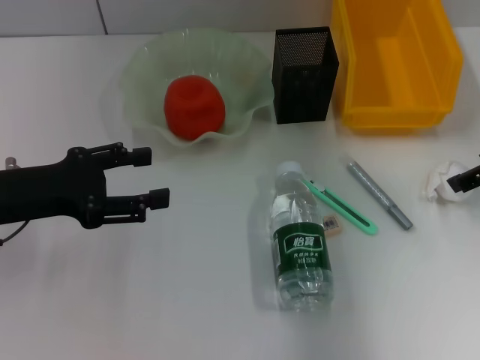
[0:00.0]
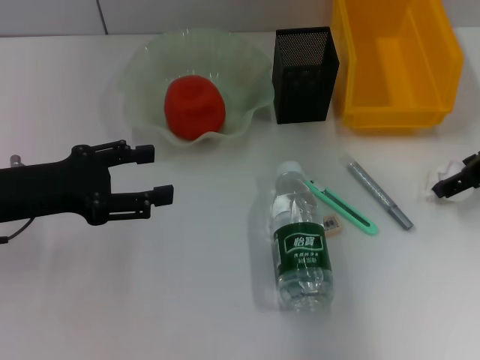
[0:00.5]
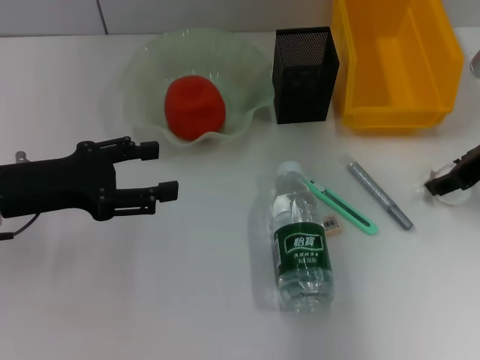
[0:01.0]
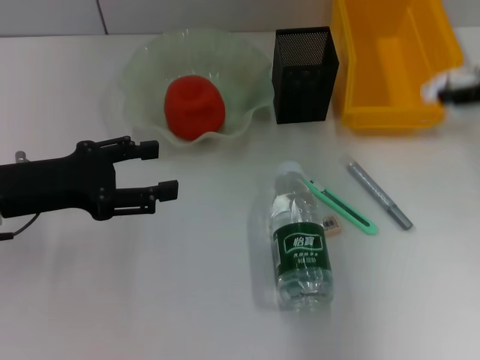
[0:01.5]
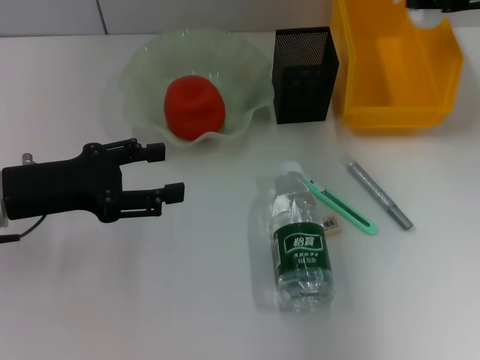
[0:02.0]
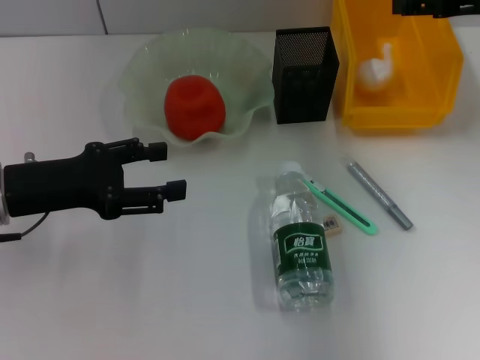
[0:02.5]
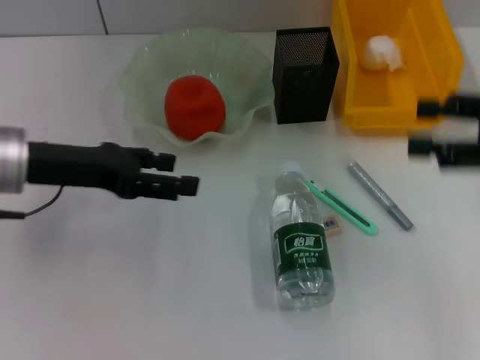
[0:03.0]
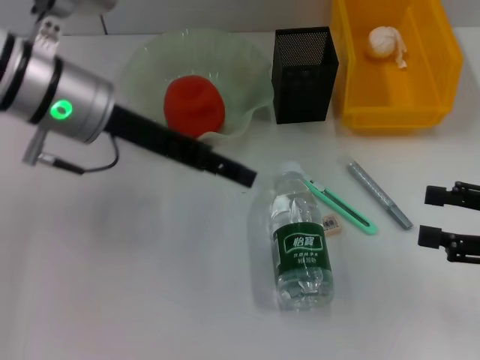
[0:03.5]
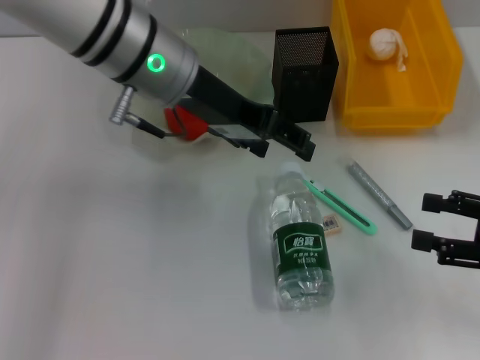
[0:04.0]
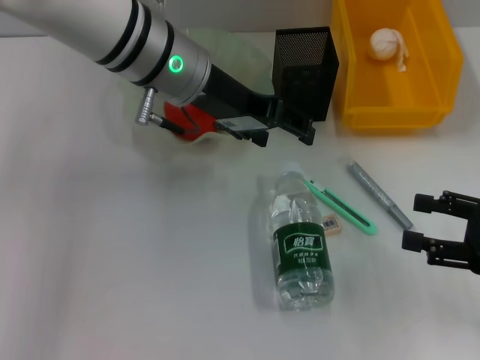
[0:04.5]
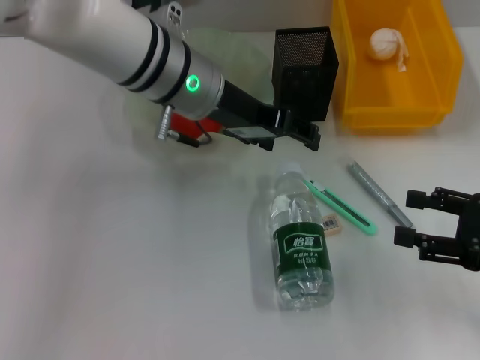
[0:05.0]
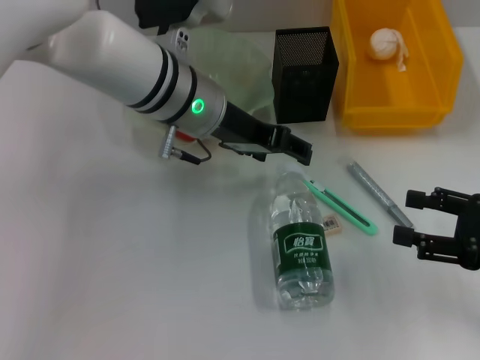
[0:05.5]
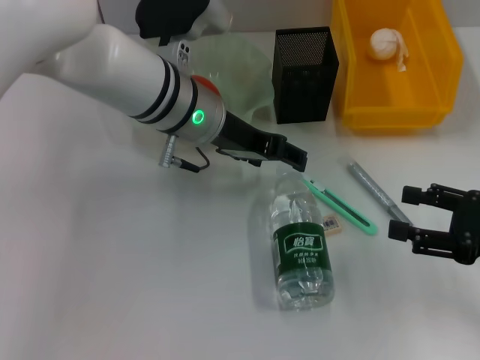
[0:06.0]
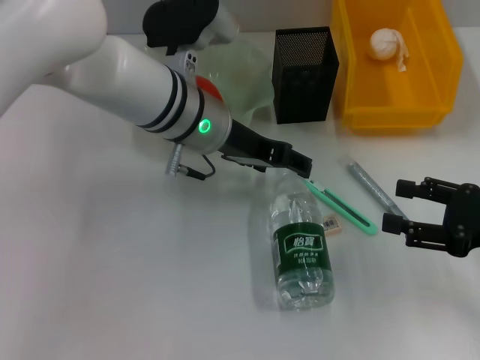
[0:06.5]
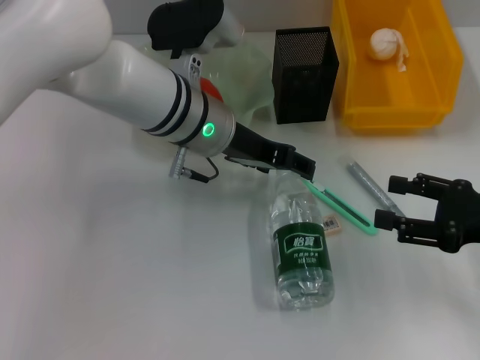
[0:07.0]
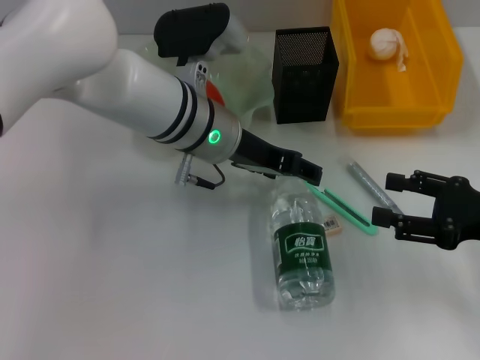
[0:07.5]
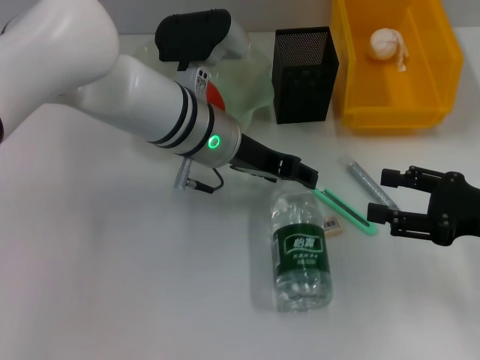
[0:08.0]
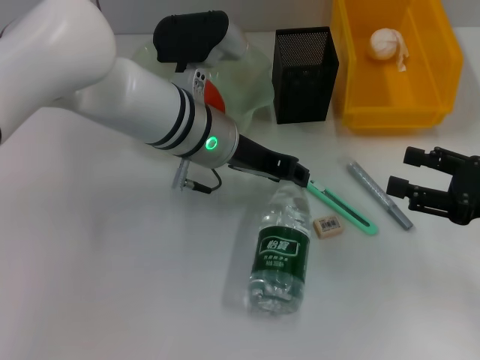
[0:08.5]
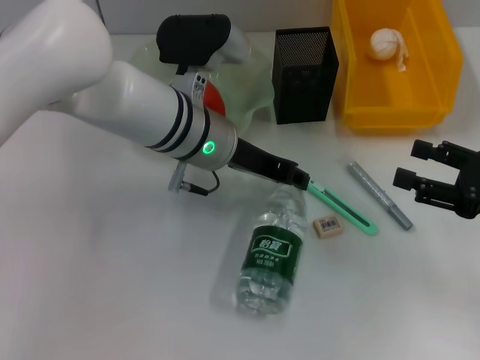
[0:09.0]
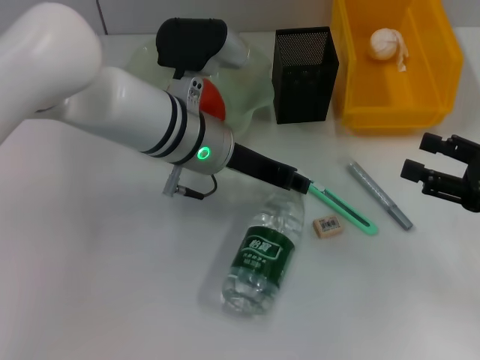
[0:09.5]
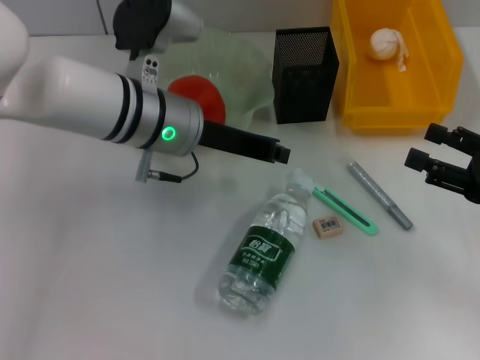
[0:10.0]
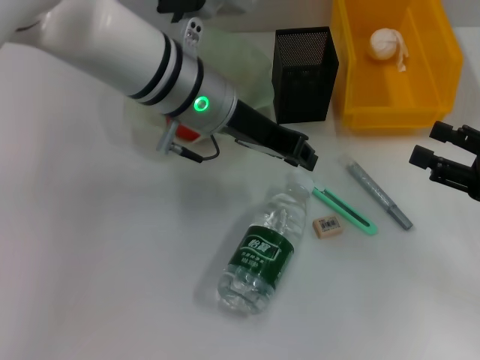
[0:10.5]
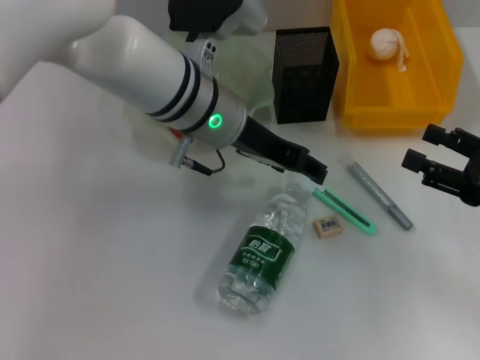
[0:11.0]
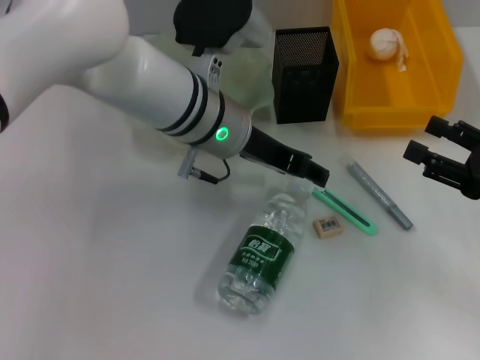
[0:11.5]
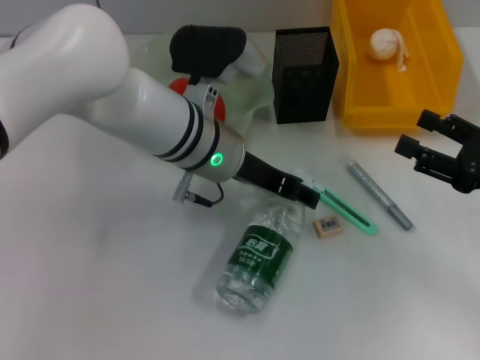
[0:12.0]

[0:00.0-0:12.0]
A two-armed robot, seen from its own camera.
Step, 0:01.0 to 0:02.5: Place the paper ball into the trash can with the right hand.
0:00.0 to 0:02.0: The right gripper moves forward, about 10 cm, and closes.
0:02.0 to 0:04.0: The left gripper travels to the right, forward and upward by approximately 20 cm; the right gripper travels backward and downward by approximately 25 cm.
0:04.0 to 0:06.0: The left gripper heads downward, covering some 5 cm.
0:06.0 to 0:08.0: The grippers stay close to where they were, moving slightly.
0:08.0 to 0:10.0: The left gripper closes up.
0:10.0 to 0:12.0: The left gripper opens up.

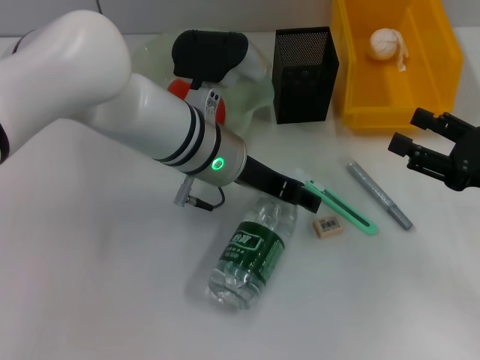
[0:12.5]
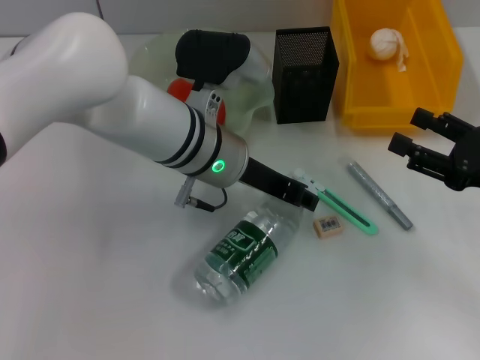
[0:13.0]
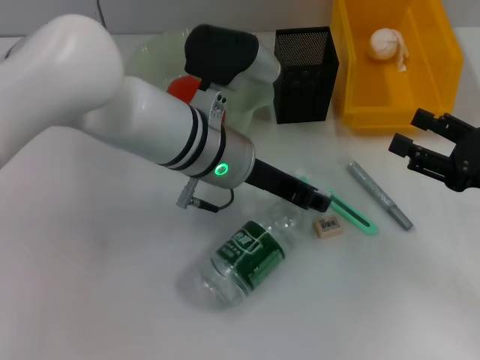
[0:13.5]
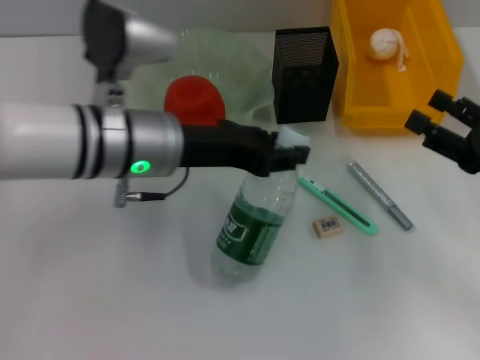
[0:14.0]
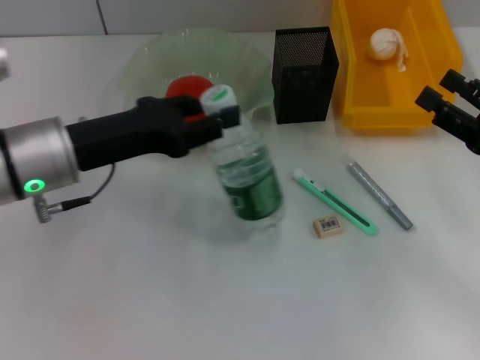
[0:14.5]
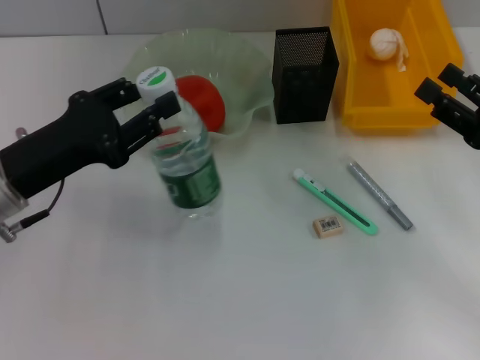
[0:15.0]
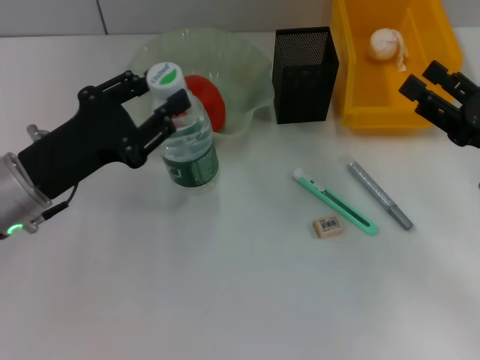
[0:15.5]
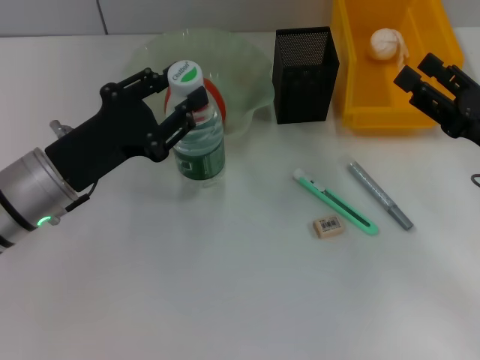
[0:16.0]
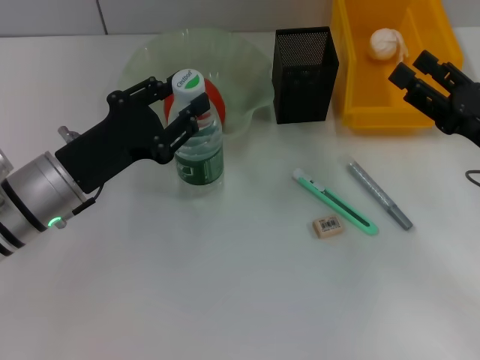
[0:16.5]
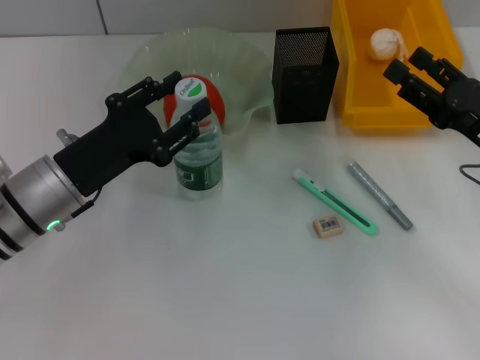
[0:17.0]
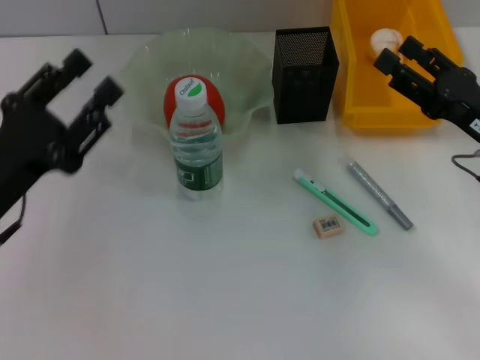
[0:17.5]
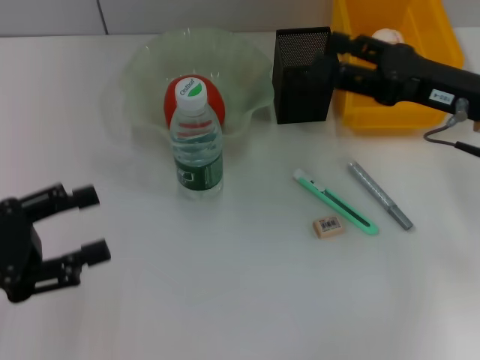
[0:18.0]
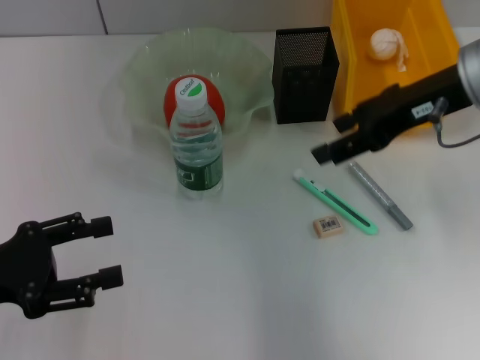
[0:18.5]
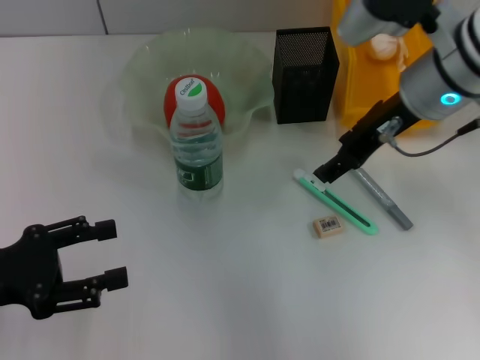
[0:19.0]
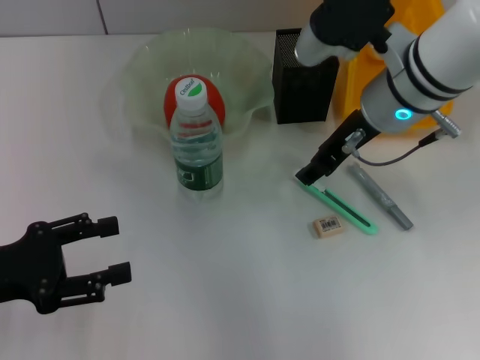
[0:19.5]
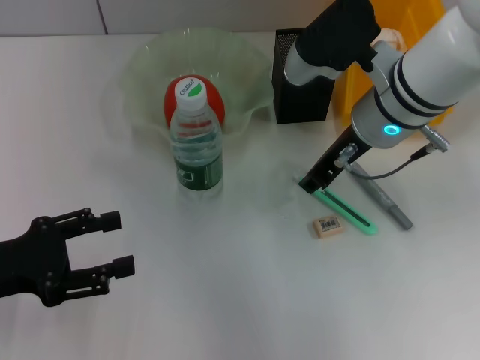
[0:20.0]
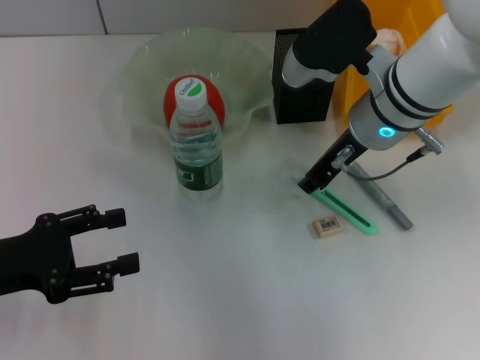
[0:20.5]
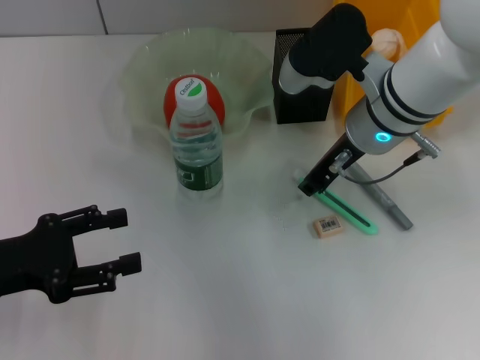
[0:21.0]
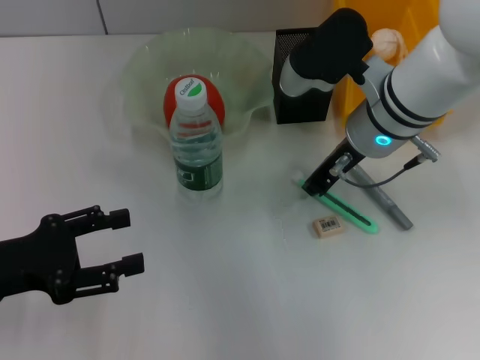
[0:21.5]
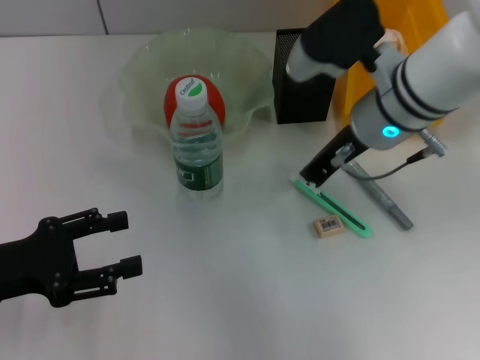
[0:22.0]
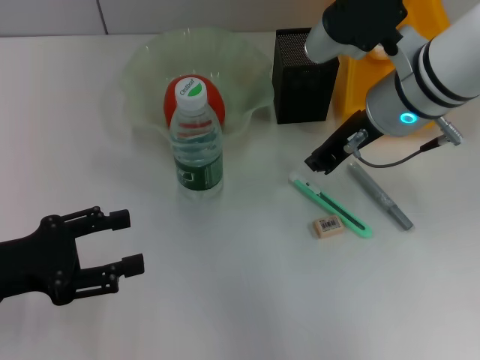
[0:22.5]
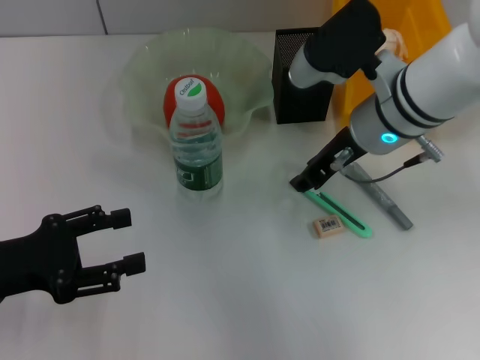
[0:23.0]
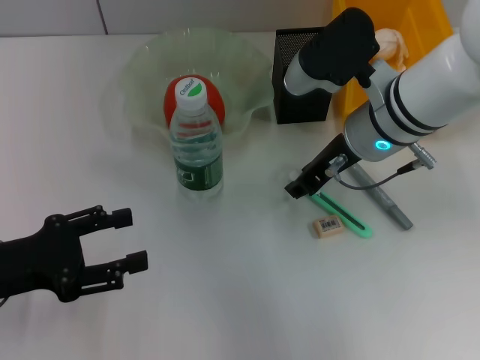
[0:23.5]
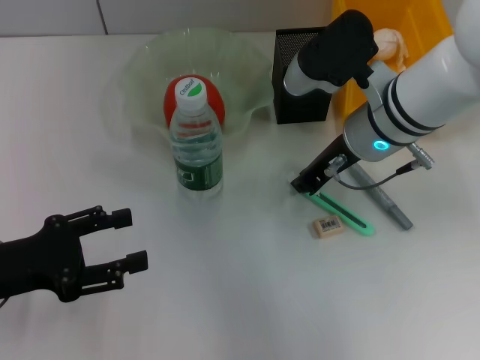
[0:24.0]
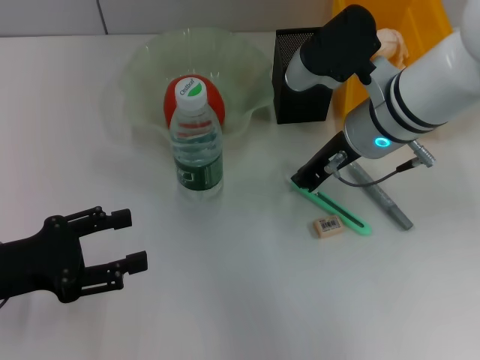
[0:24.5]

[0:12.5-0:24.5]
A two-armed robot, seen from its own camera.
Step, 0:13.5 to 0:17.0: Place the water bottle on the table with the left hand.
0:12.5 to 0:14.5: The left gripper moves to the left and backward, about 15 cm, and closes.
0:14.5 to 0:16.5: The left gripper moves downward, some 5 cm.
0:16.5 to 0:18.5: The left gripper goes about 15 cm to the left and backward, and opens up; the right gripper goes roughly 15 cm upward, to the left and forward.
0:18.5 to 0:20.5: The right gripper goes about 10 cm to the left and downward, and closes up.
0:20.5 to 0:22.5: The right gripper closes up.
0:22.5 to 0:24.5: The right gripper opens, then closes once more.

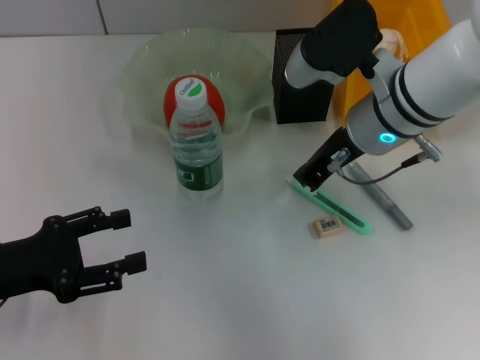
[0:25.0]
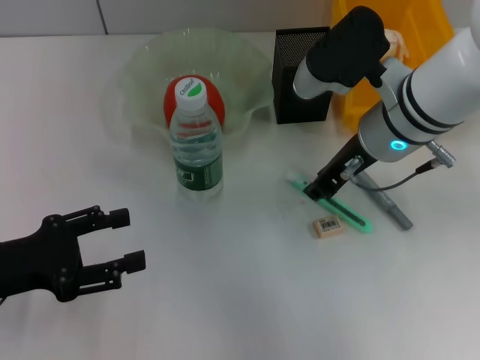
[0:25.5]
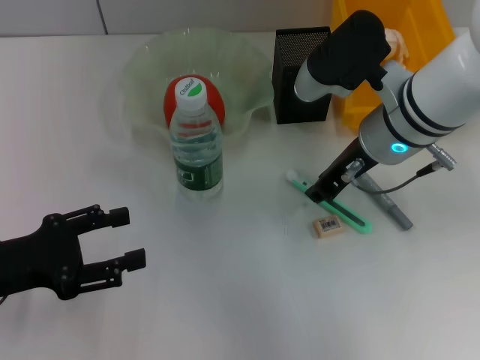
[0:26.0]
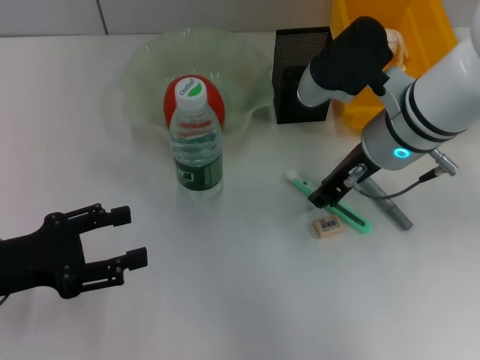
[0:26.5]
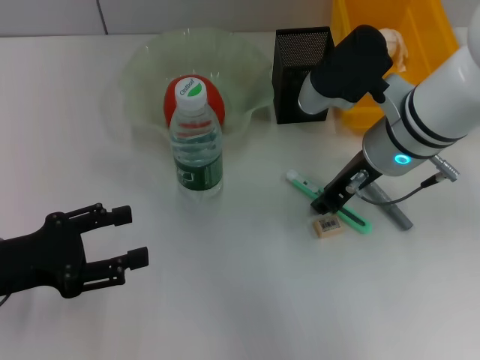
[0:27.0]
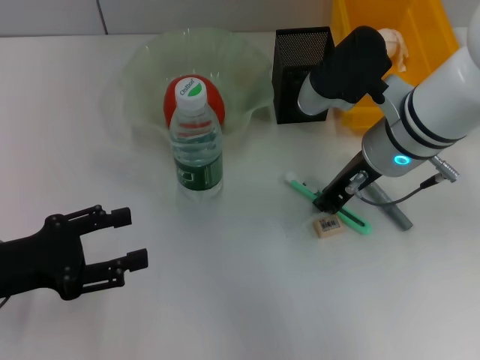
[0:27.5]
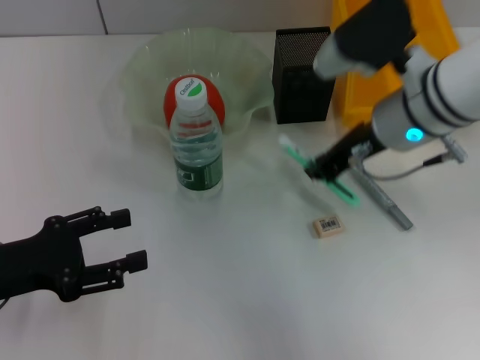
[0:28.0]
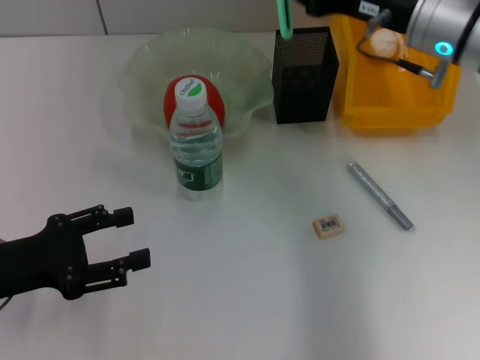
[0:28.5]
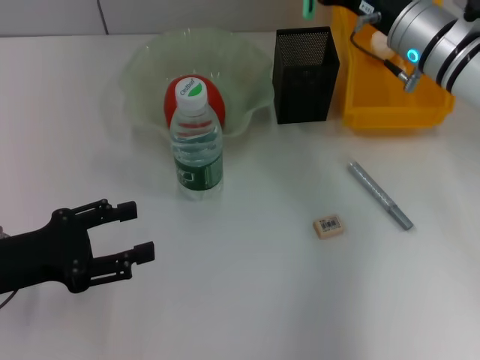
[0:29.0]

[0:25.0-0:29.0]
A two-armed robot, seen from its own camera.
Step, 0:25.0 to 0:27.5: Grab the blue utility knife with the right hand.
0:25.0 to 0:27.0: The right gripper opens.
0:27.0 to 0:29.0: The right gripper is displaced forward by some 5 cm.
